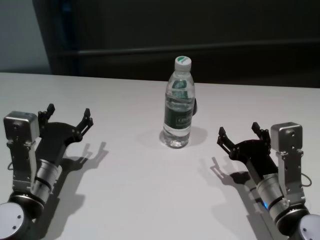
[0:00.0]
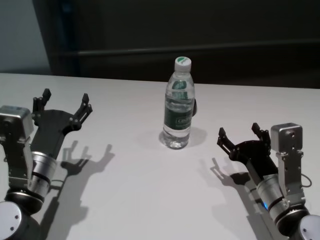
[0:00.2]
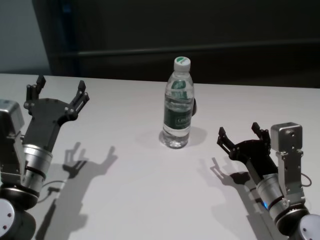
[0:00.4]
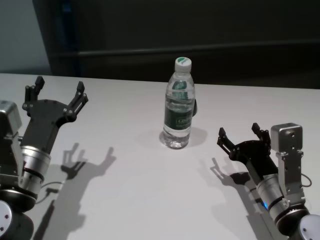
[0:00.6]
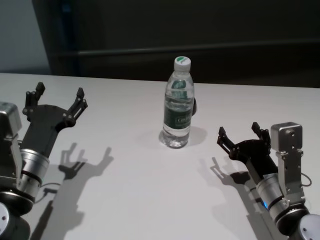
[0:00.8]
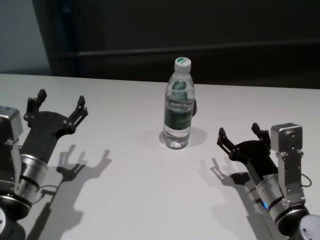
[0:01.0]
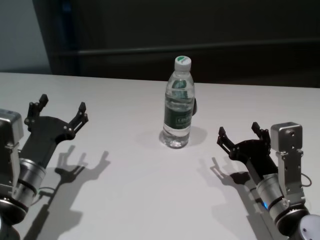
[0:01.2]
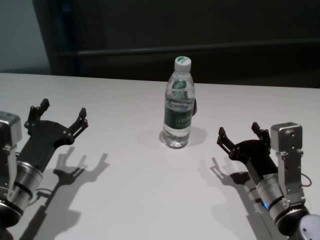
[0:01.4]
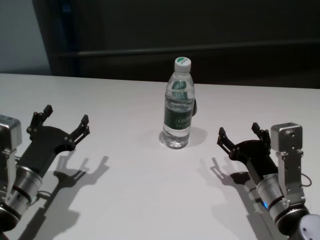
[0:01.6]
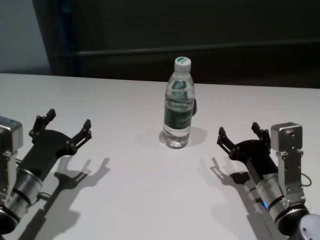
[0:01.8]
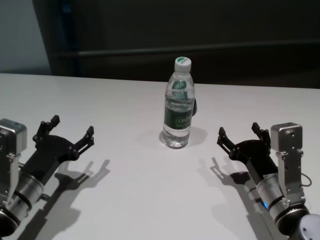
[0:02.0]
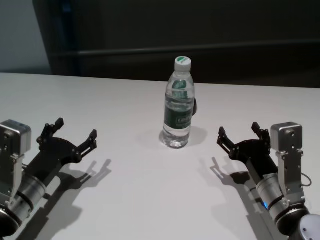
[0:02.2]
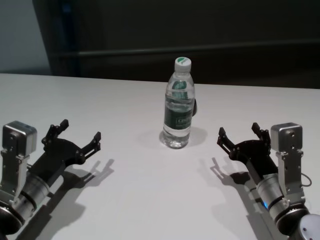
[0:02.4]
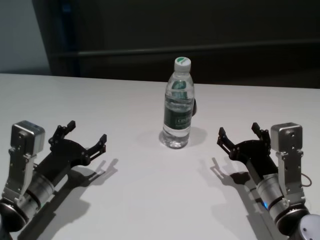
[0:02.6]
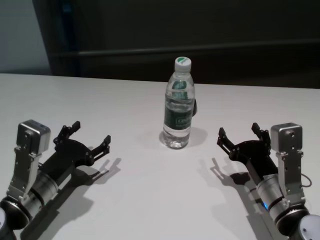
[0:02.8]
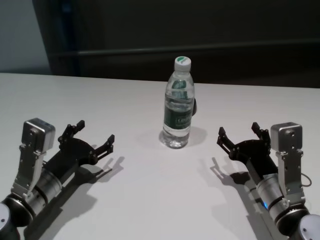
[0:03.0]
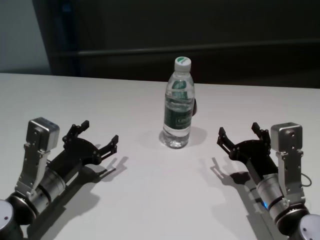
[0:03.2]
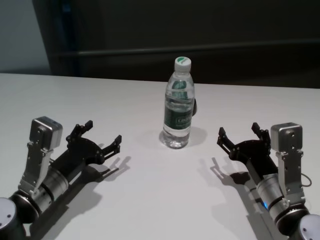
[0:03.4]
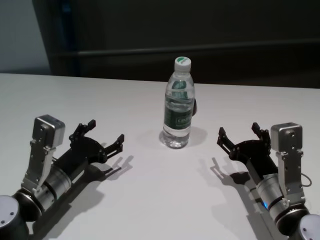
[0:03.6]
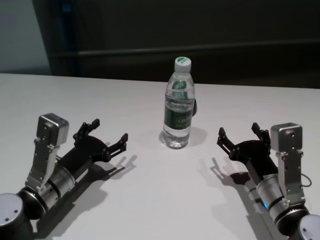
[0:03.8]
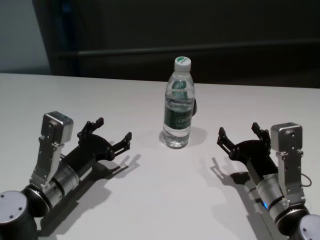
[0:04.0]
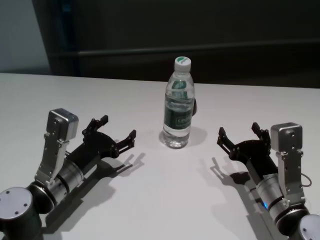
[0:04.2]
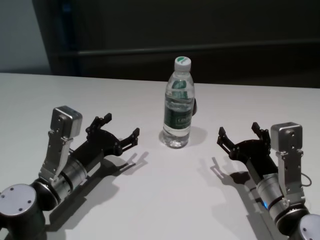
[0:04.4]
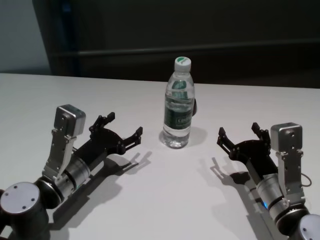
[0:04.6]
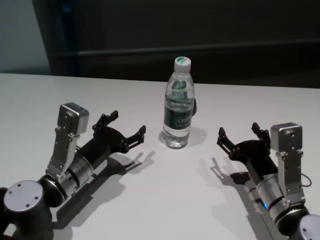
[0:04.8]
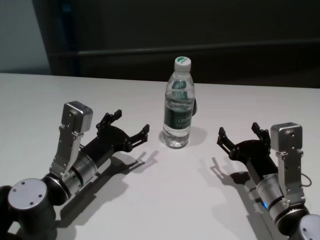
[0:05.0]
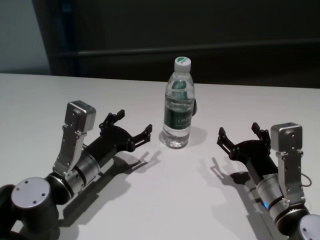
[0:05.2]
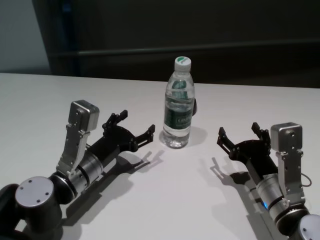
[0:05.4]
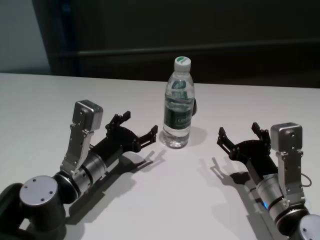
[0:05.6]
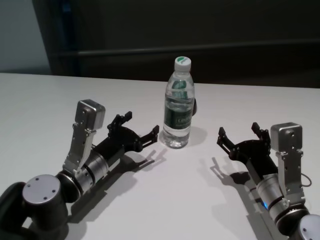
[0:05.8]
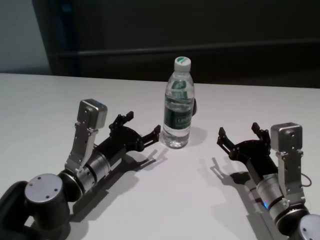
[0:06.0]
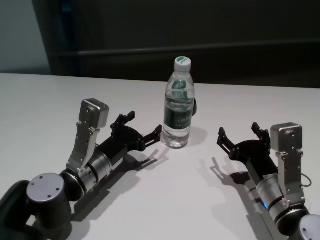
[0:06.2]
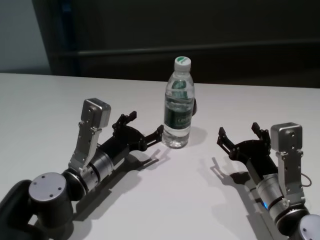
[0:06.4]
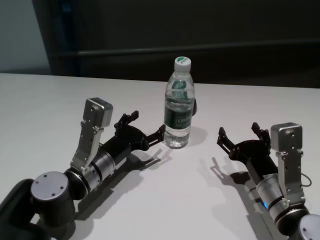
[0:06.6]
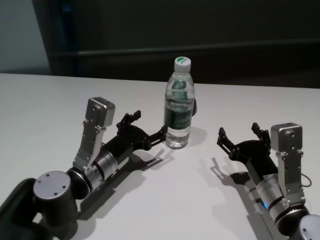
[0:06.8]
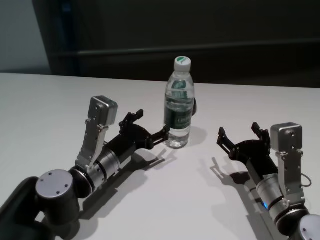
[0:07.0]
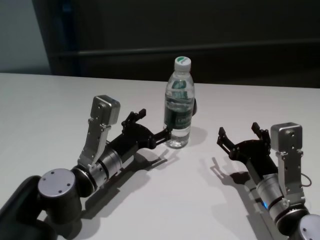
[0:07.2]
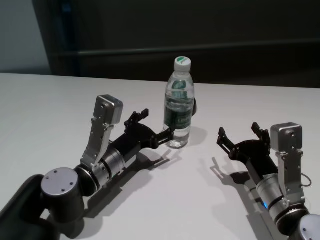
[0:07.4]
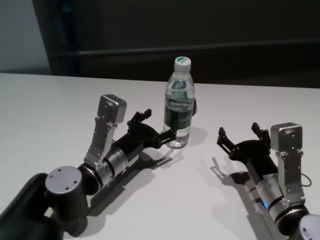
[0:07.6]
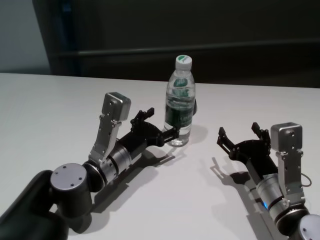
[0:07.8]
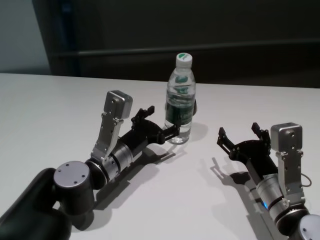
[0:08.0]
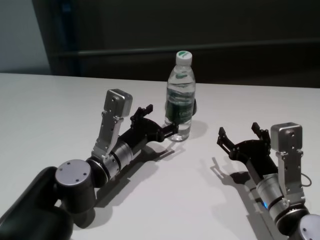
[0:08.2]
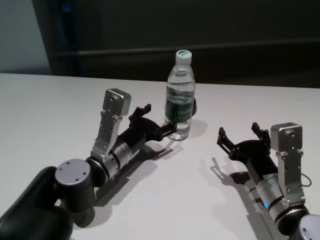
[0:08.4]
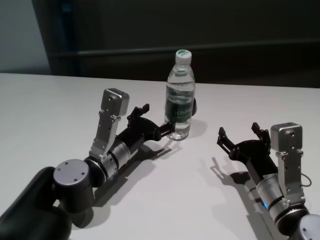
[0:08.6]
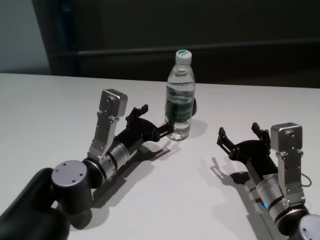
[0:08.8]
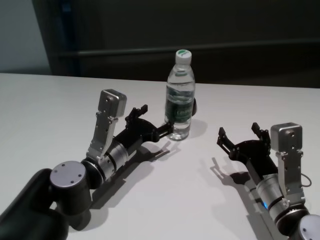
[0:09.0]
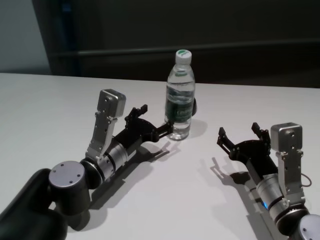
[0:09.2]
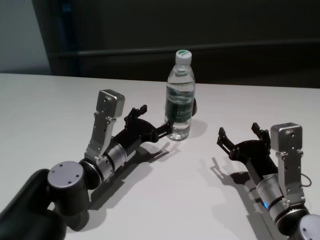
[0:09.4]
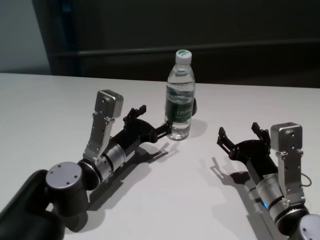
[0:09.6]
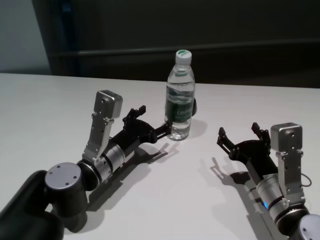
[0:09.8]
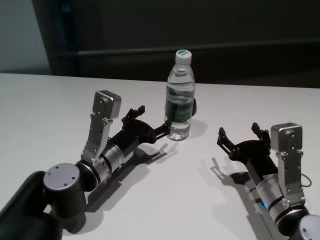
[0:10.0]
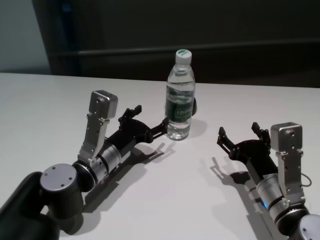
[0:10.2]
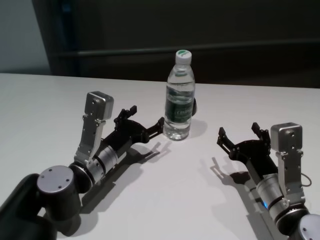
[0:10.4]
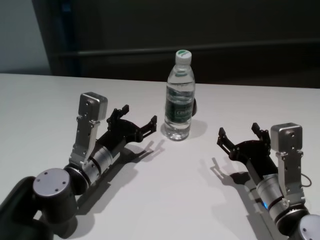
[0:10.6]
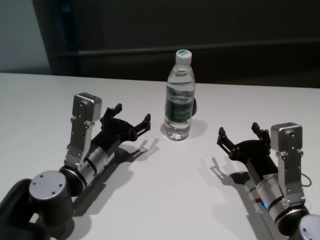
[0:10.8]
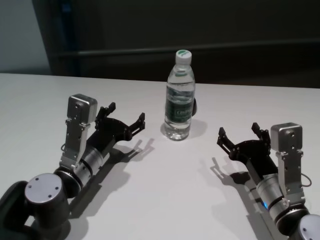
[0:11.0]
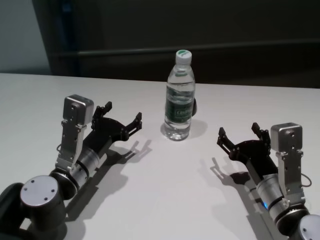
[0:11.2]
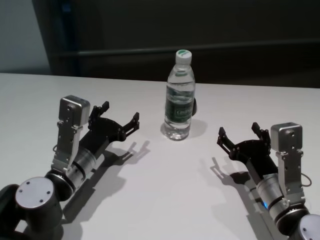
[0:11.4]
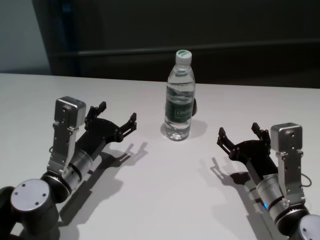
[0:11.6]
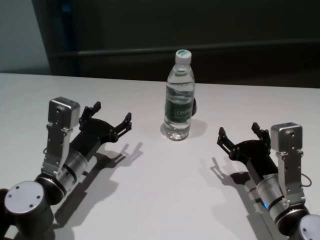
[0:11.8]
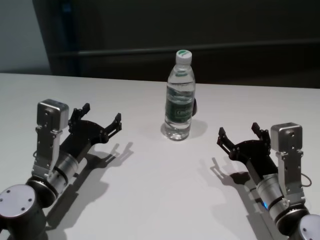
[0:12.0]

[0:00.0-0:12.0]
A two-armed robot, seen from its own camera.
Task of the whole recording: return to a safe position after touching an obstacle with your arm on the white table.
Step, 0:00.0 to 0:10.2: Touch the bottle with left gripper.

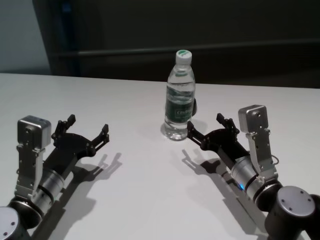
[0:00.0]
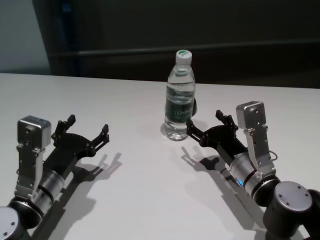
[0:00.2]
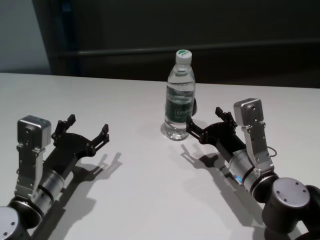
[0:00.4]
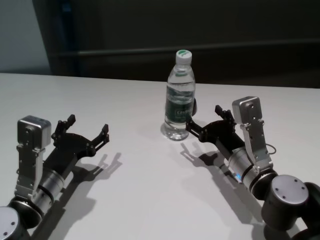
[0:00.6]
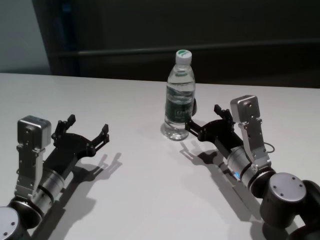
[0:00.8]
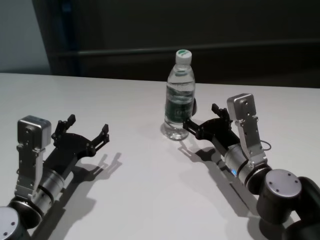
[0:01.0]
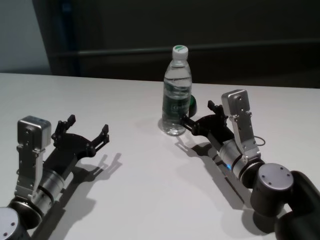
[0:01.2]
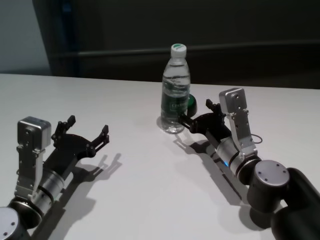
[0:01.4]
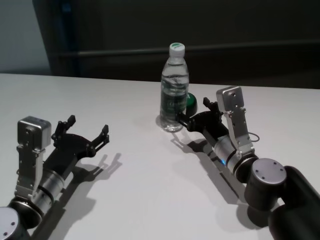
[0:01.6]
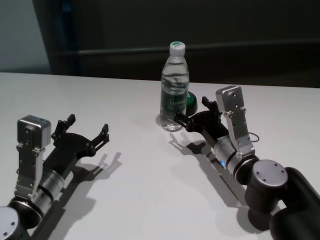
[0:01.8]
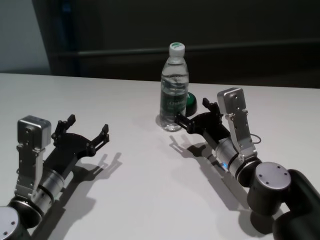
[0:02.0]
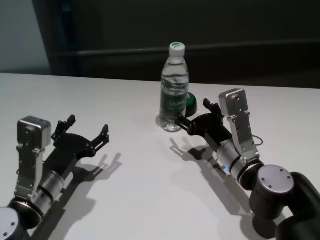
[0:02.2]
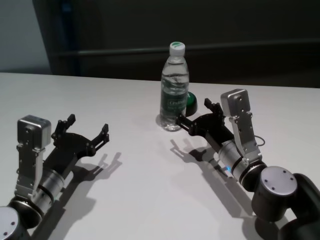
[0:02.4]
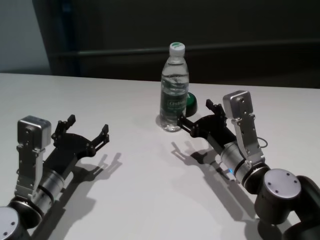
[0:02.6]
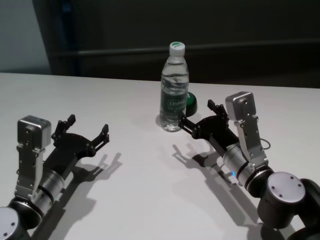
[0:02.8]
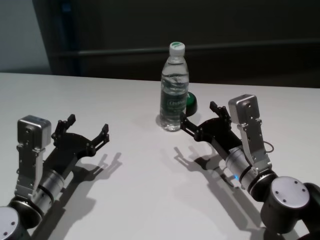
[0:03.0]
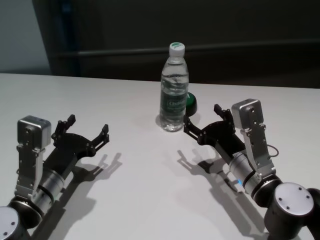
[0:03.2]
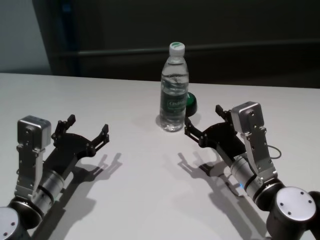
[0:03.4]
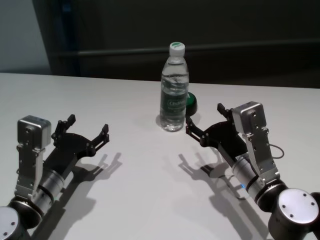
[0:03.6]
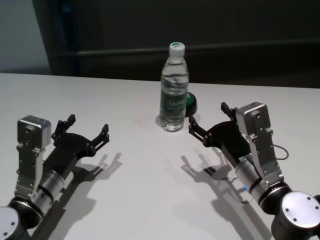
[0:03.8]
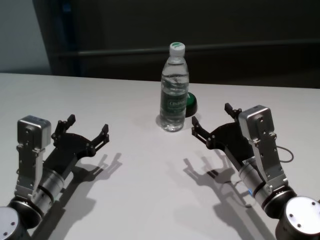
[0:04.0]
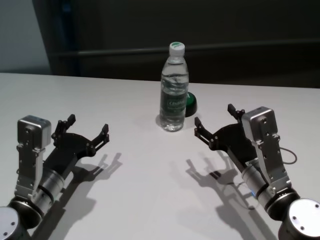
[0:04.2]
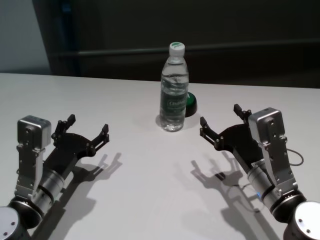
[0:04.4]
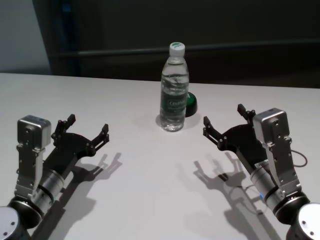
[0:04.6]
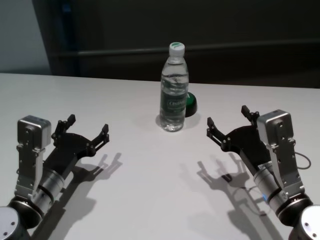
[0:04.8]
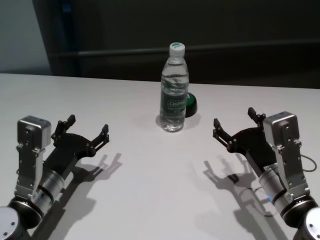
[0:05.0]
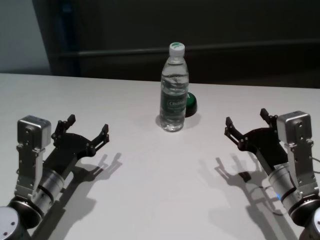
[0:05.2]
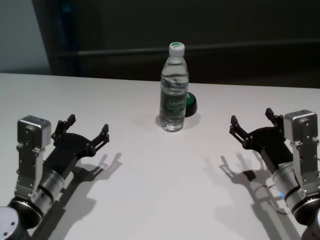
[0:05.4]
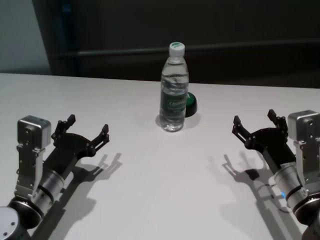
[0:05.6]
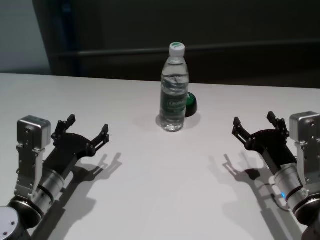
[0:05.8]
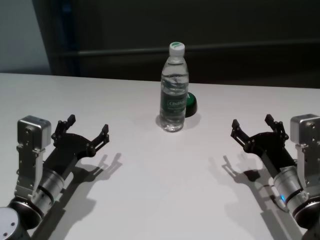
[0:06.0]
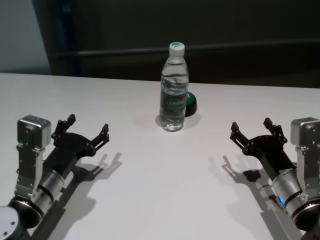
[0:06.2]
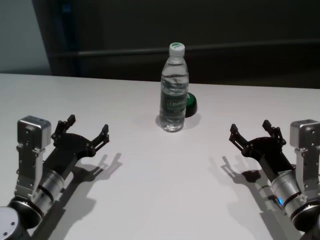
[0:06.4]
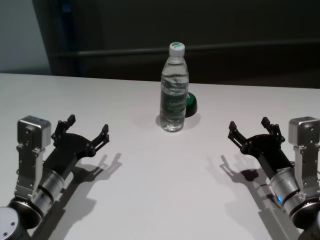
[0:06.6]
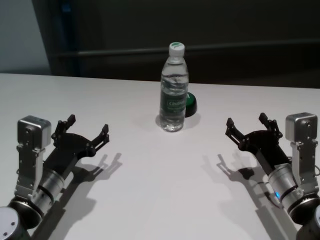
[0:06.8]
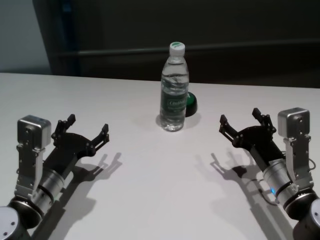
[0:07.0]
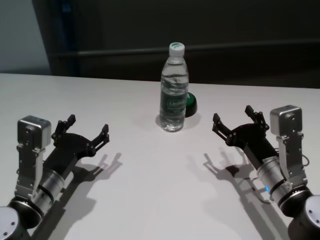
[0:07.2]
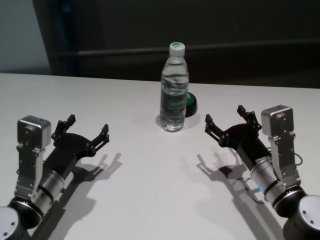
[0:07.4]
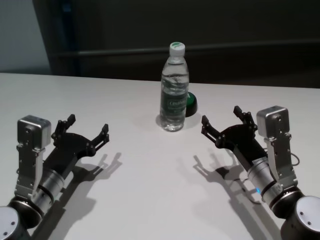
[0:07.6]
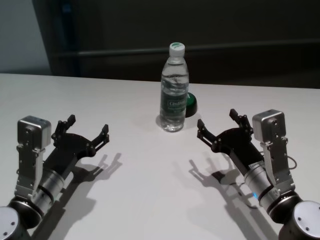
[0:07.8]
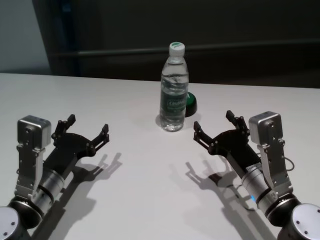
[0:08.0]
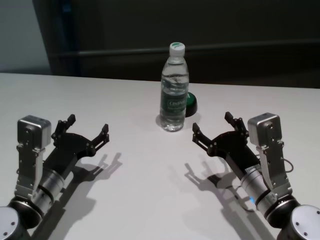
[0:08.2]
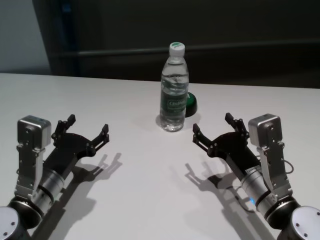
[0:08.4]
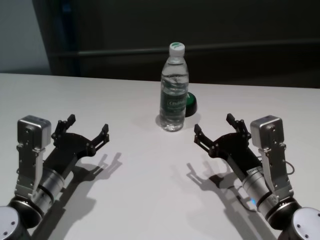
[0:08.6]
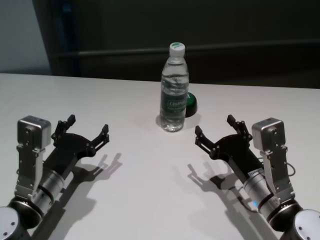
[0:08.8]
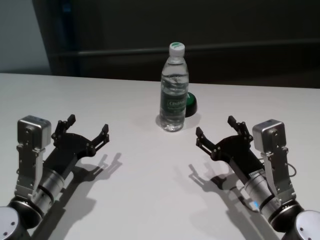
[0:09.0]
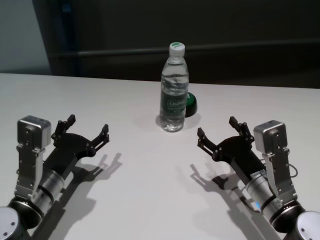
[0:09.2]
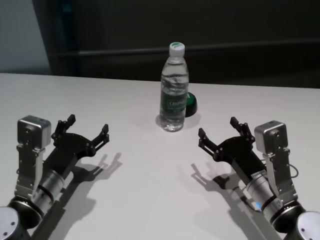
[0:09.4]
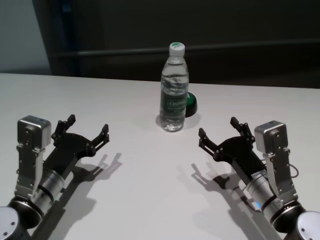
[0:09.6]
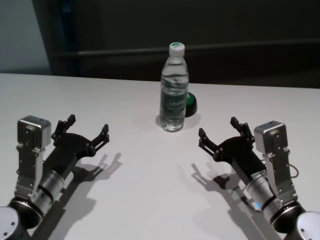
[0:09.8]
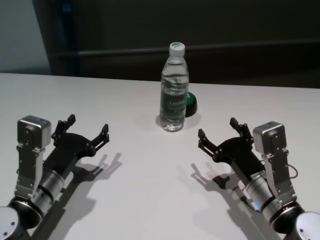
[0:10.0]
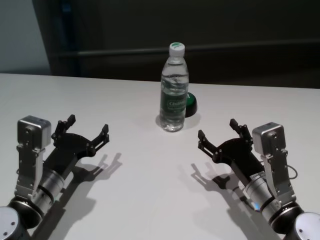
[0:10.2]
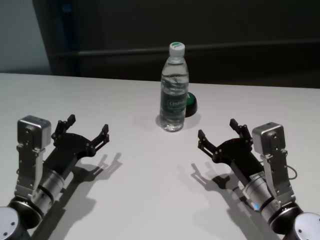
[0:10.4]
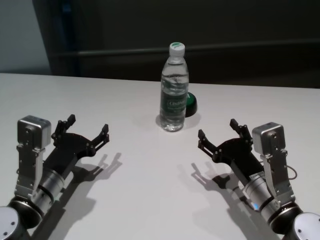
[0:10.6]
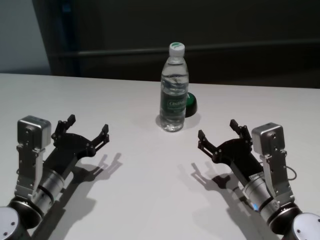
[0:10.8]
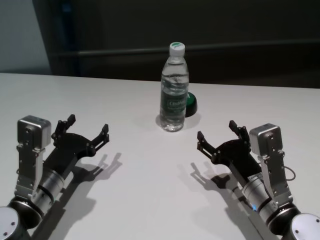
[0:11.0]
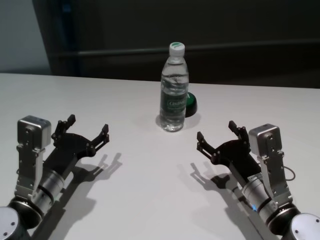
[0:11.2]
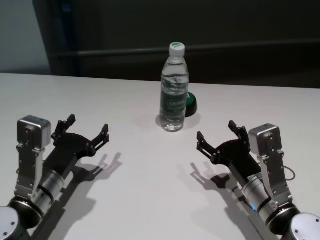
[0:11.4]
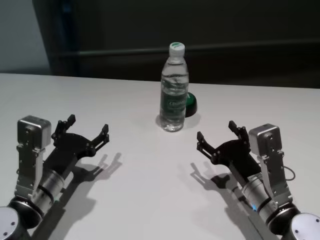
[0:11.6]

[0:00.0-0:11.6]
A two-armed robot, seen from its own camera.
Task of the whole recording: return to a safe position after touching an obstacle with your arm on the white table.
Step, 0:00.0 to 0:03.6: Touch the bottle with right gripper.
